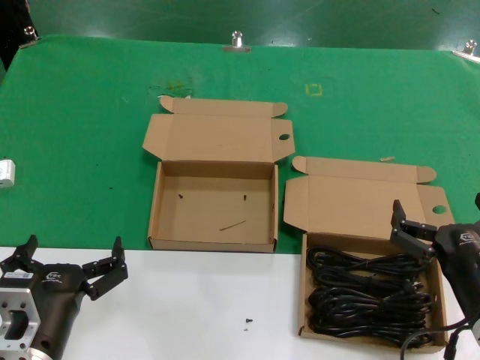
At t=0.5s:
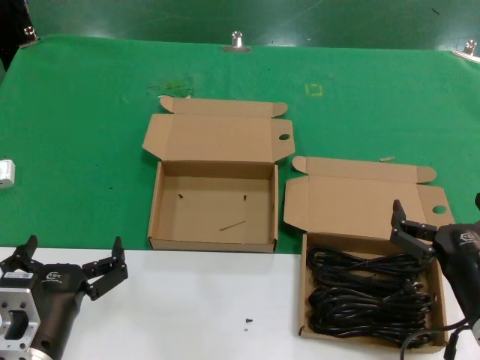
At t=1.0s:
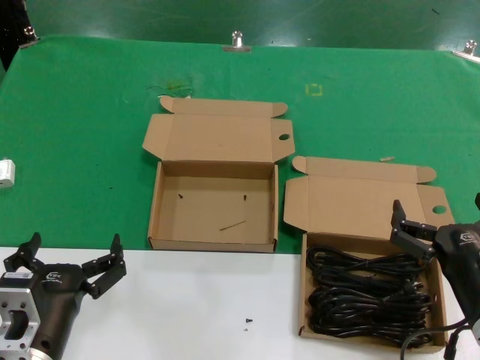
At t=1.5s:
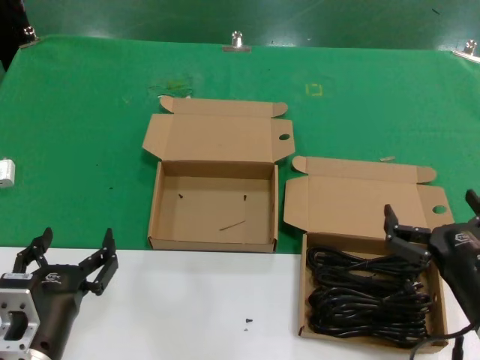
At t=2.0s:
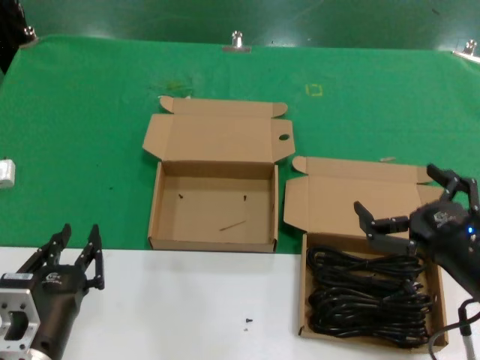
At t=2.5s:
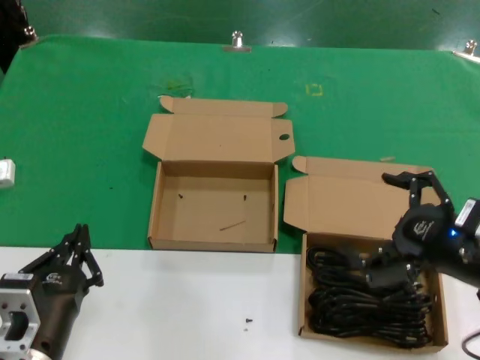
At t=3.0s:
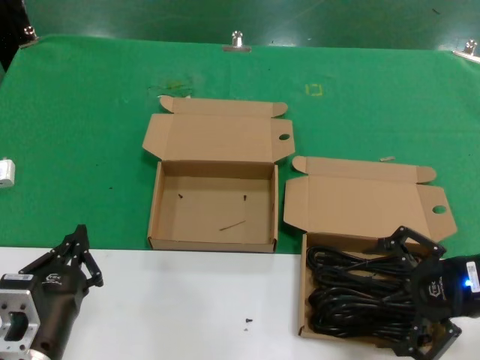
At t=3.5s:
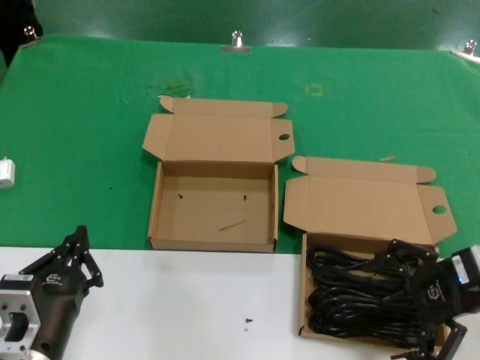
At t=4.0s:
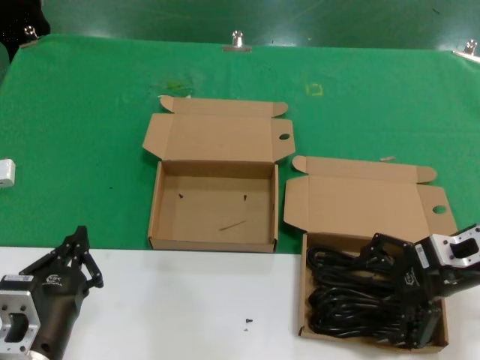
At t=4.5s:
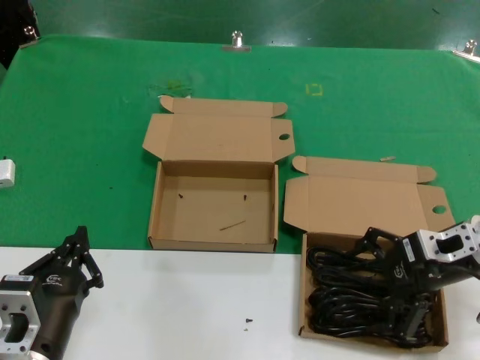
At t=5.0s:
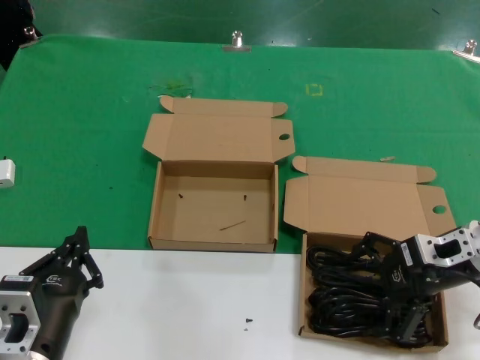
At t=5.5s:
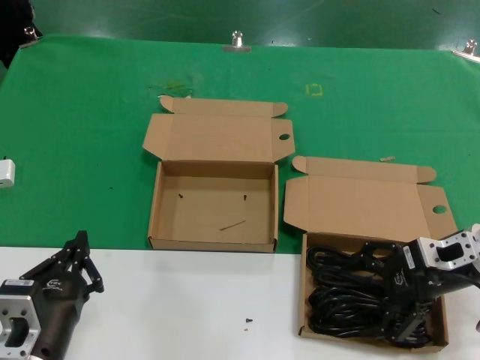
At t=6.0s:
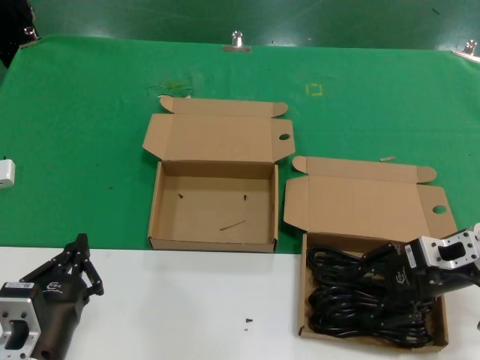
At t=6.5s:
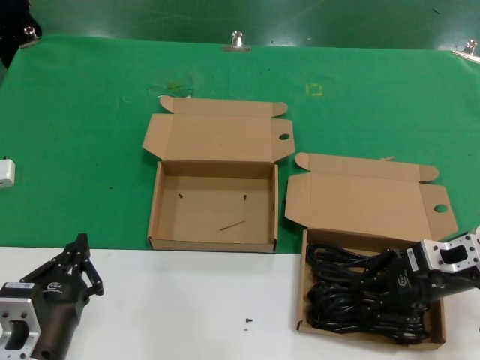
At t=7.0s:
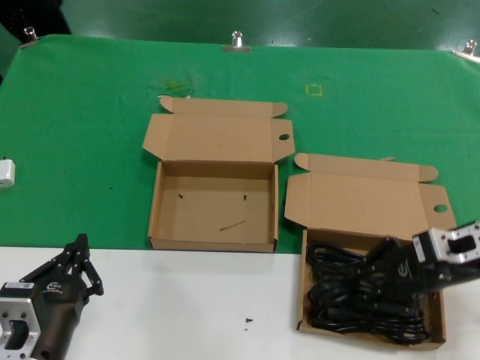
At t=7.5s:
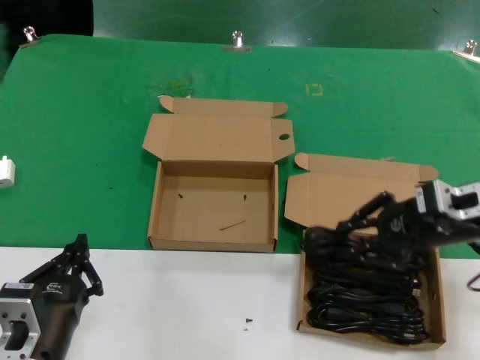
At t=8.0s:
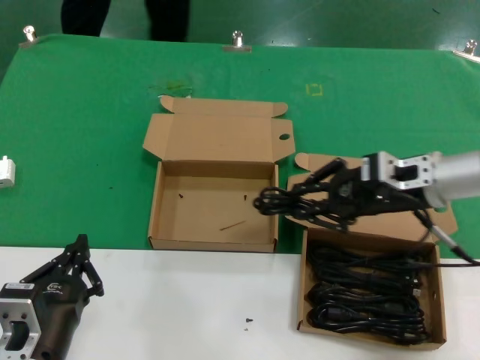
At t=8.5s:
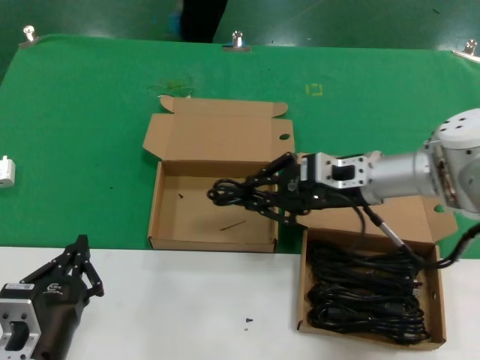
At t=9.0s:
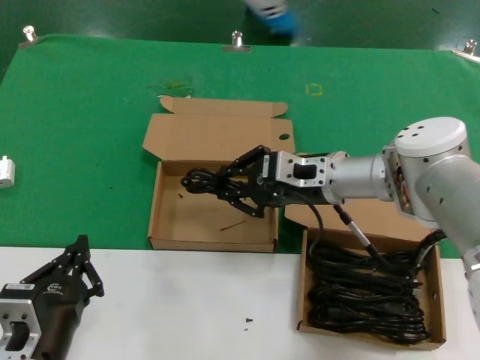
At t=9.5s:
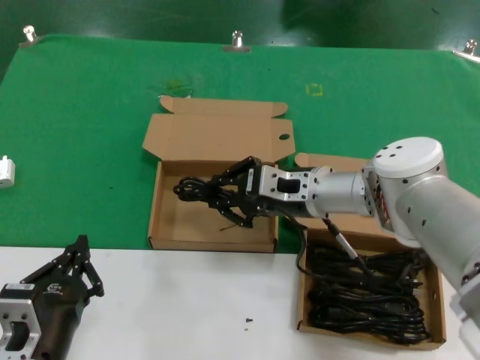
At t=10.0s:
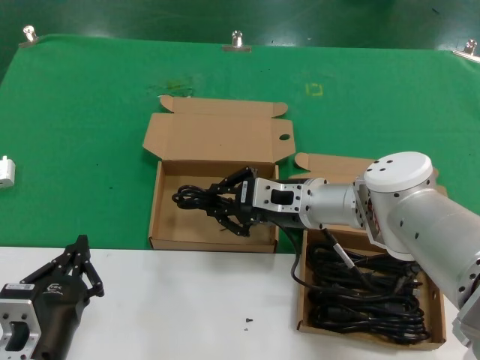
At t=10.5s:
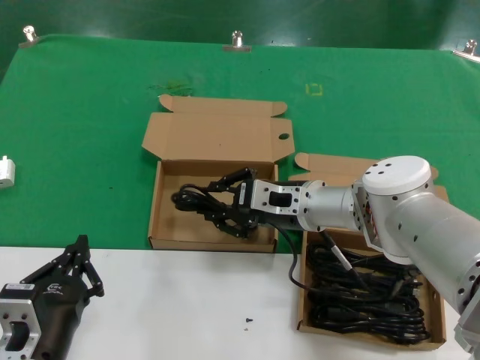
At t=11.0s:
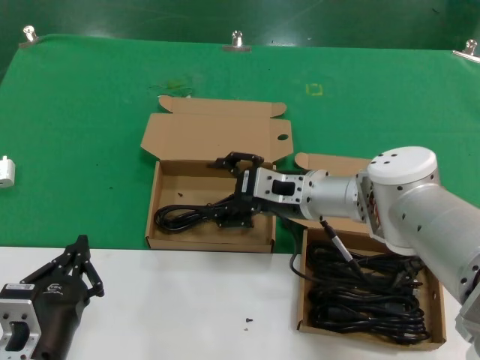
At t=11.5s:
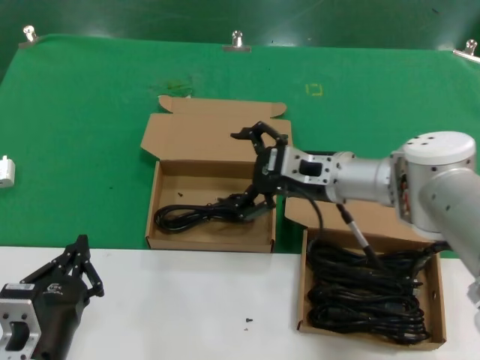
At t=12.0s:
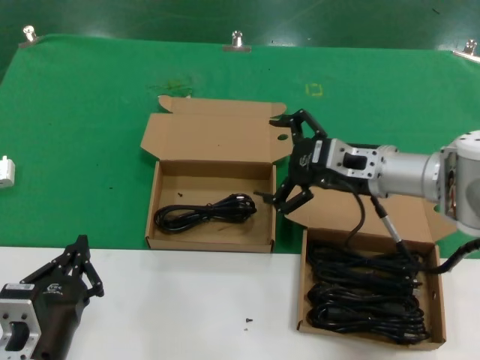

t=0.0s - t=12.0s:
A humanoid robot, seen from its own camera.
Task of the whole recording: take the parts from the box containing them and put them into an empty box.
Step, t=0.0s - t=6.5s: Grasp the data cable.
Step, t=7.0s - t=10.5s: Place the data cable in the another box.
t=0.0s - t=2.0s: The right hand moves about 5 cm.
t=2.0s - t=4.0s: The right hand heads forward, covering approximately 15 cm.
t=4.0s - t=6.0s: The hands stay close to where they were, moving slightly.
t=6.0s - t=8.0s: The right hand shifts roughly 10 cm upward and to the left.
t=8.0s - t=10.0s: The right hand shifts about 15 cm to the left and downward.
t=10.0s - t=12.0s: The right hand is displaced to the right by approximately 10 cm.

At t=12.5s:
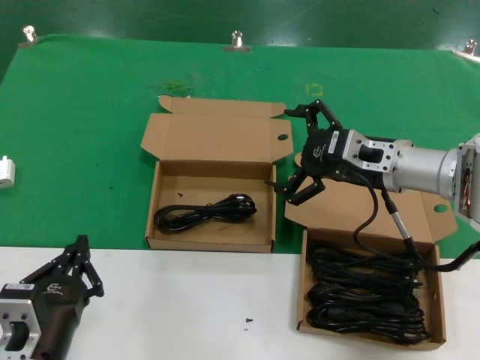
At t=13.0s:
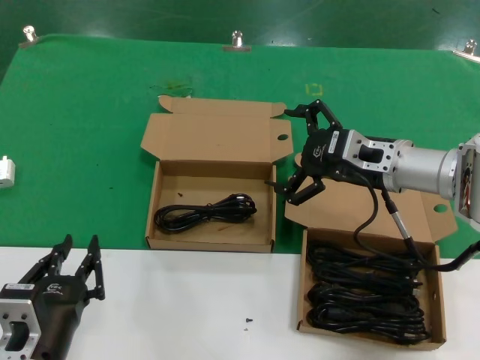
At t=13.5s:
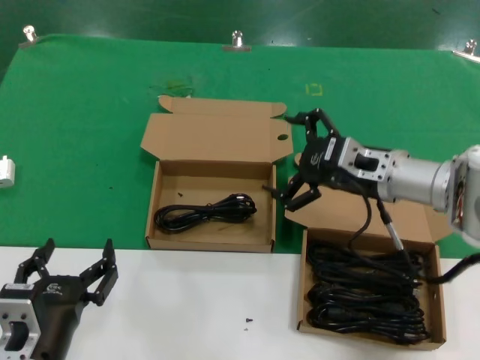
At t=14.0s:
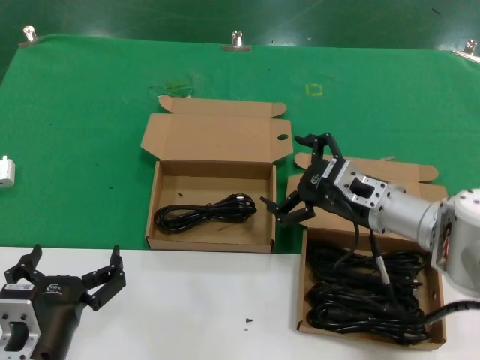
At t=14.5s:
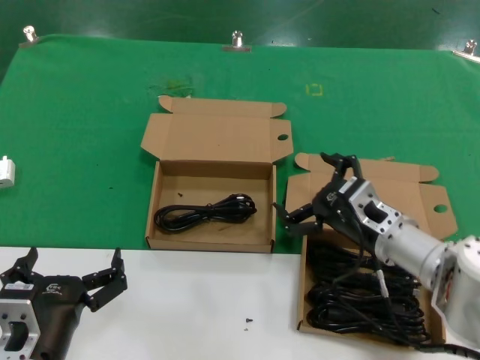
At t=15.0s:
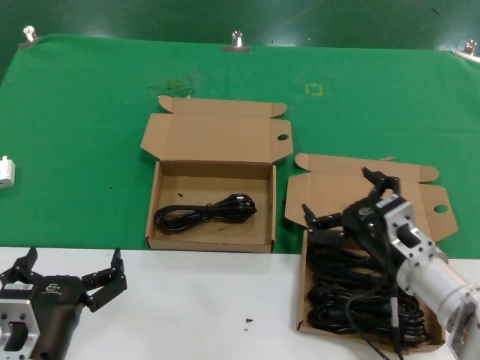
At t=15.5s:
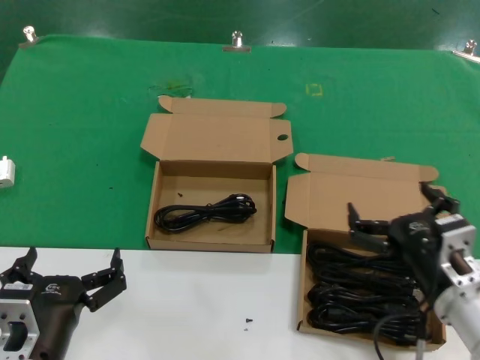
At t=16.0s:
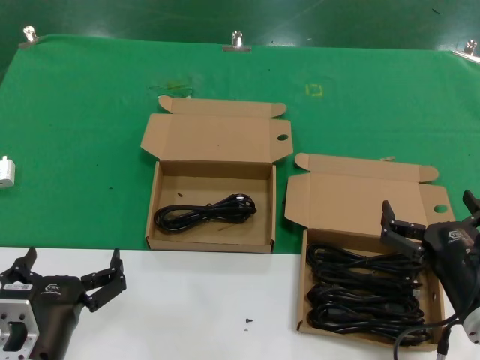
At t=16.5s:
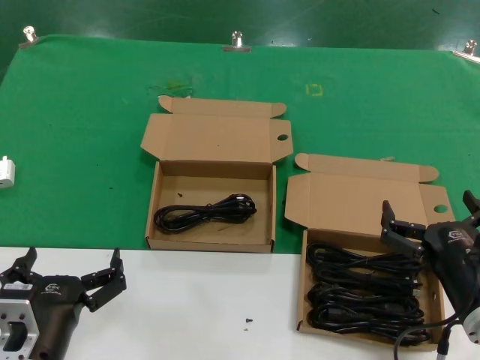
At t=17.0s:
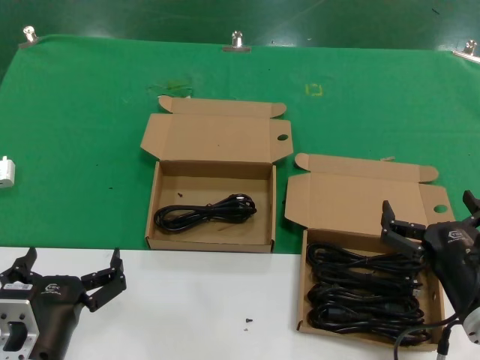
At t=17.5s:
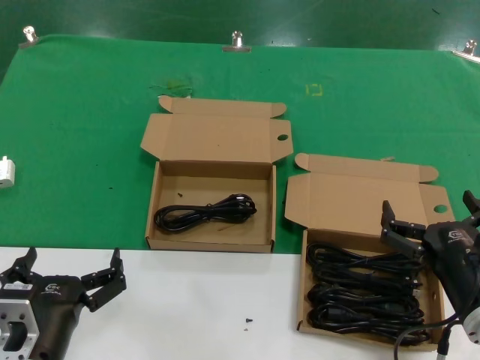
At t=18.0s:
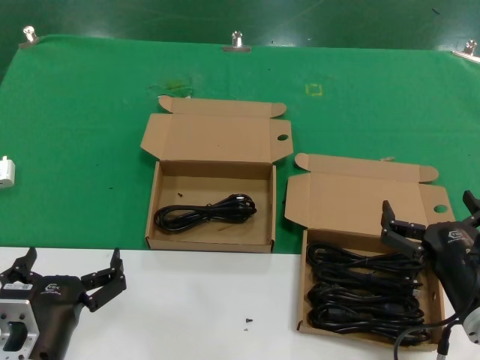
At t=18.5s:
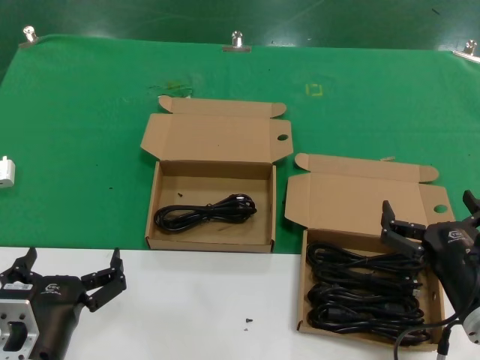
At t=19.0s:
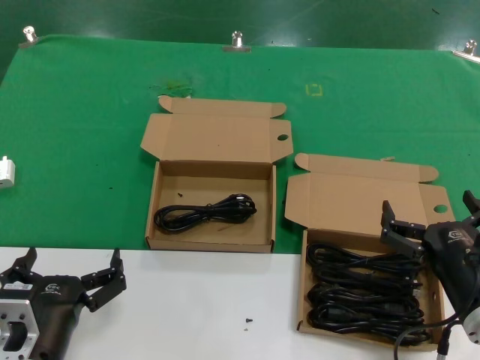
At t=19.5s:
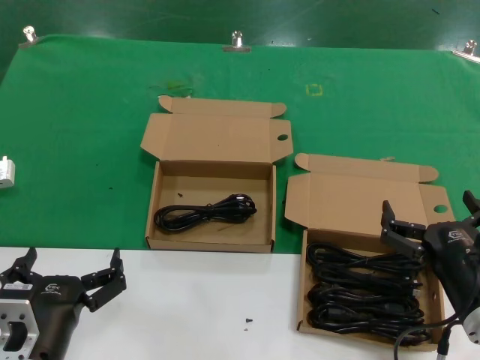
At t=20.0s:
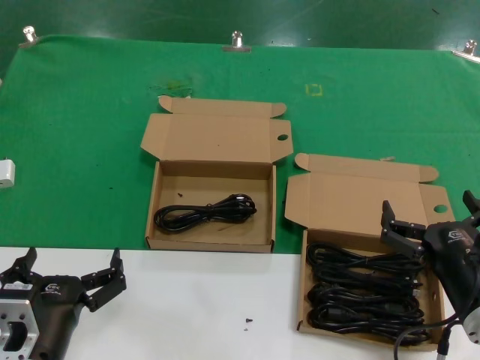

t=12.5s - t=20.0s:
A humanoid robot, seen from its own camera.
Task of the whole recording: take the parts from the box containing them and put them into an empty box.
t=12.5s - t=14.5s: The right hand travels downward and backward by roughly 10 cm.
t=14.5s - t=16.5s: The right hand shifts approximately 15 cm backward.
t=16.5s - t=20.0s: The two hands keep their place.

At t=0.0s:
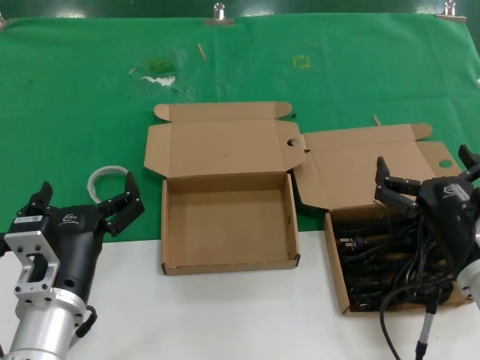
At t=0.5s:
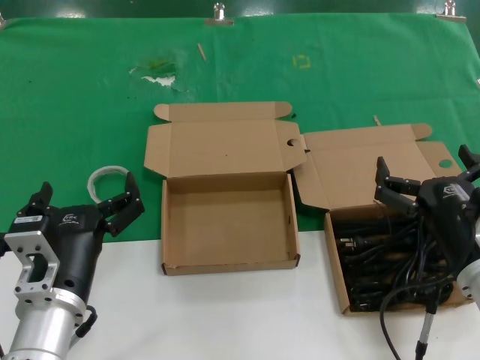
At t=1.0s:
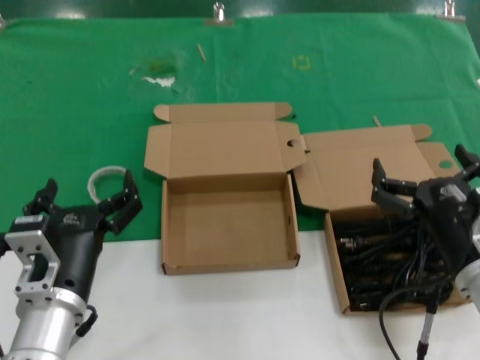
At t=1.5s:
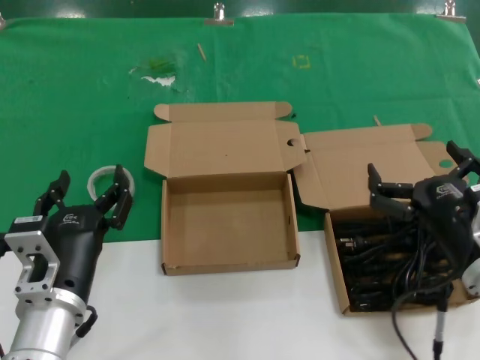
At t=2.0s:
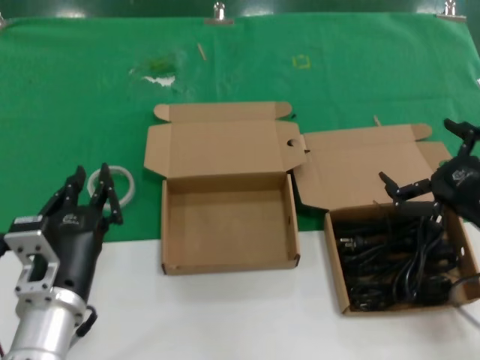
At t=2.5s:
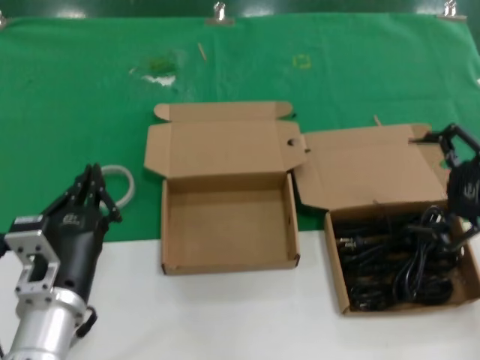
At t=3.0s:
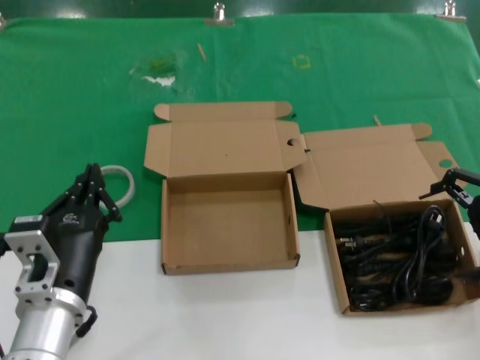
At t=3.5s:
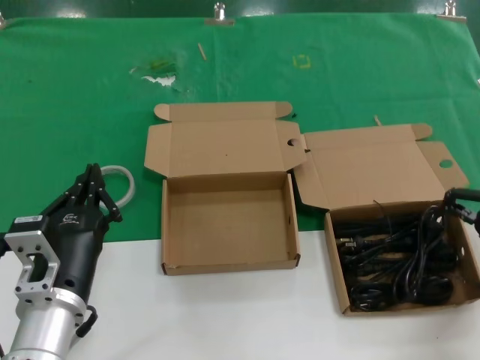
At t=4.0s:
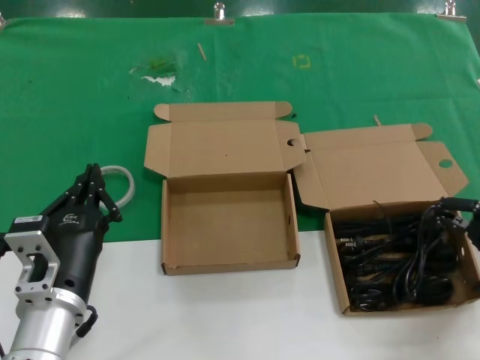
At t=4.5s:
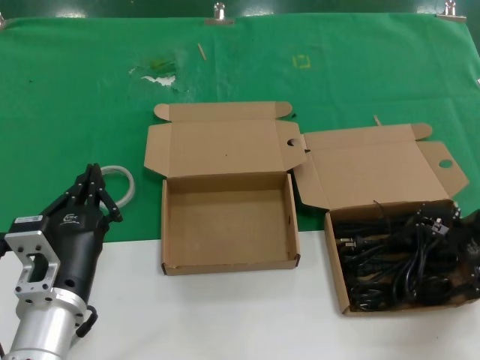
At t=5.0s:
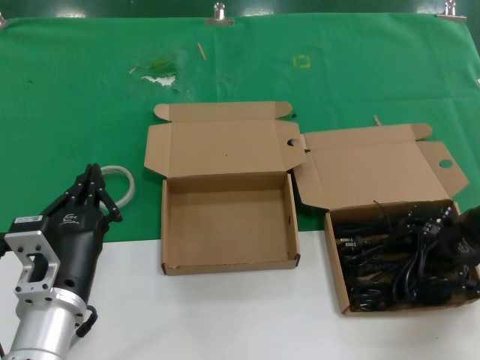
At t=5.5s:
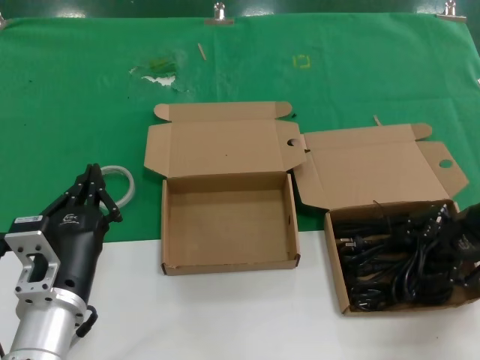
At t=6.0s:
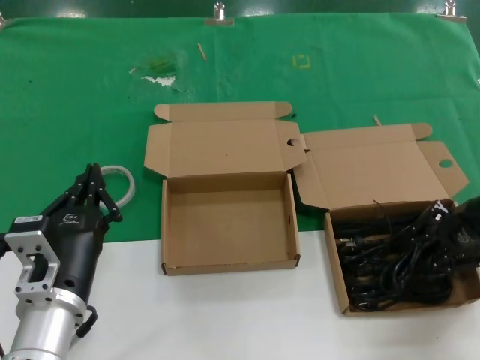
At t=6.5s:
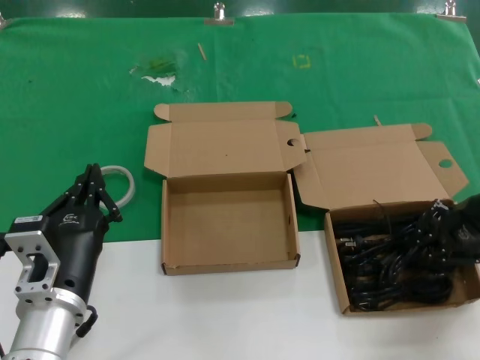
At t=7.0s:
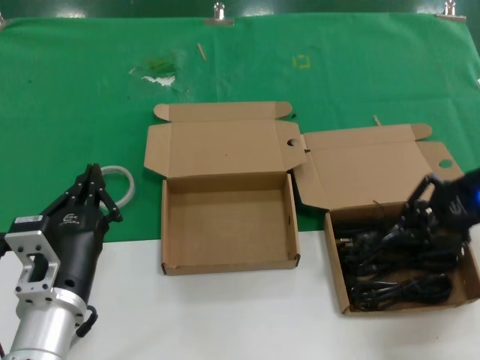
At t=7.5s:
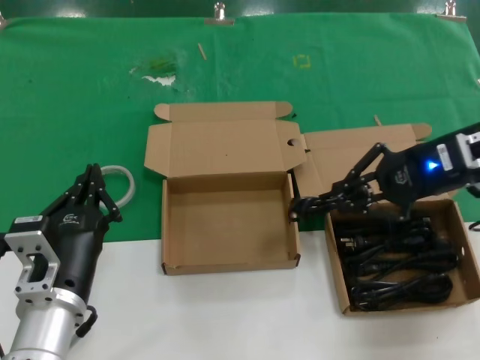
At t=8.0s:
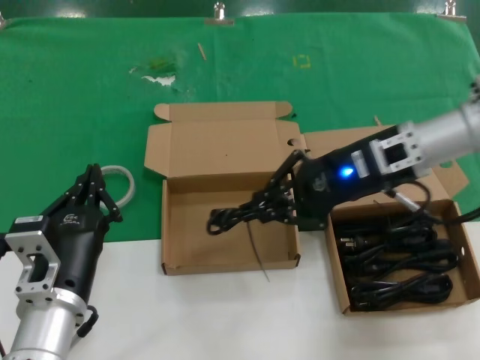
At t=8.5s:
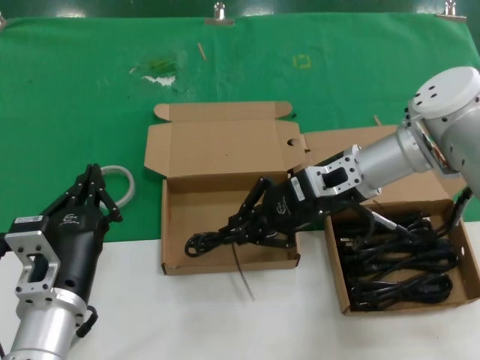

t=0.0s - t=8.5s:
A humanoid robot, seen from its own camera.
Task of the whole recording: take the parts from the box containing them and put them into an empty box.
Step, t=0.0s - t=6.0s: Grasp the data cable.
t=0.0s - t=2.0s: The right hand heads to the right, covering some 10 cm.
t=2.0s - t=4.0s: The right hand moves forward, to the right and upward, some 15 cm.
t=4.0s - t=6.5s: The hands make only small movements.
t=6.5s - t=8.5s: The right hand heads to the left, covering approximately 20 cm.
